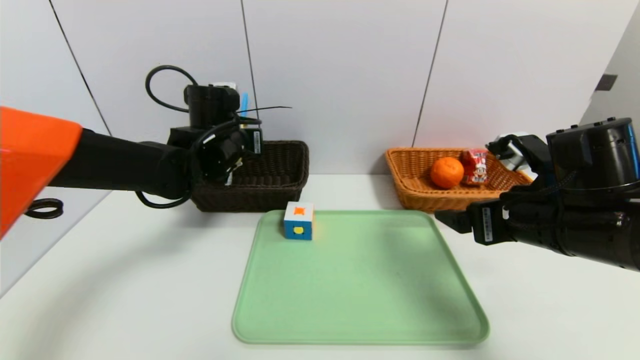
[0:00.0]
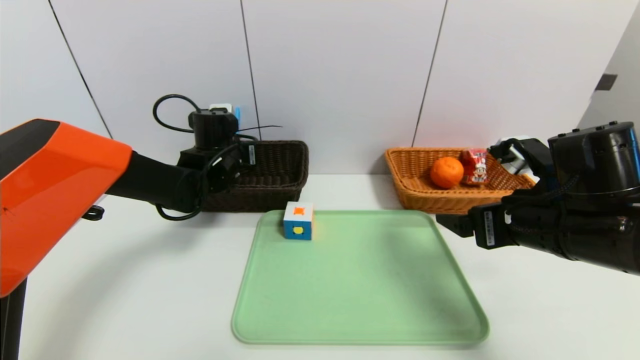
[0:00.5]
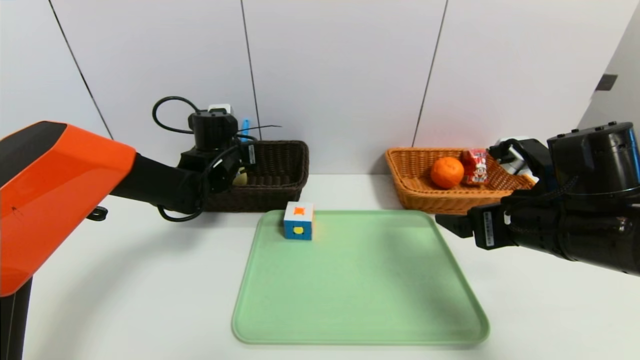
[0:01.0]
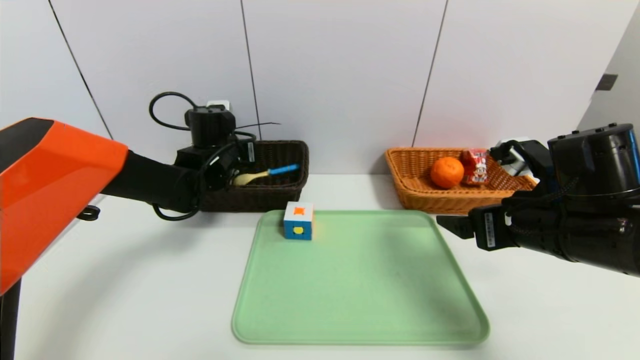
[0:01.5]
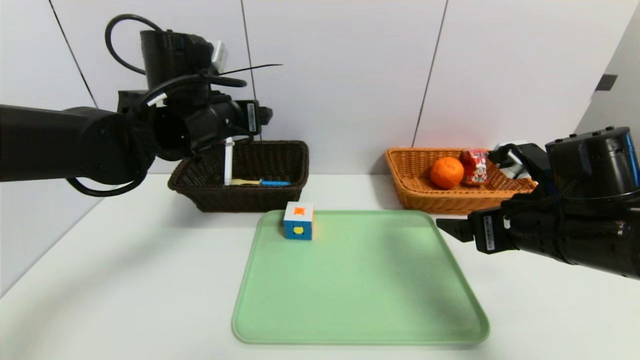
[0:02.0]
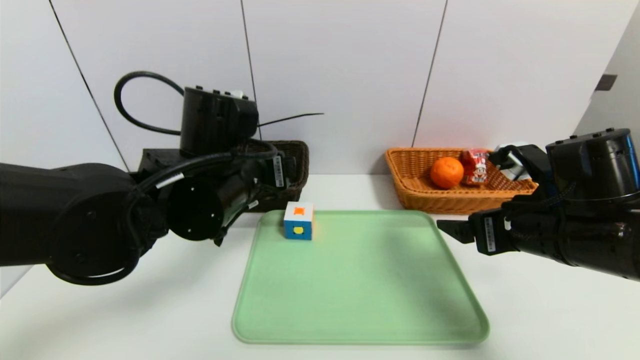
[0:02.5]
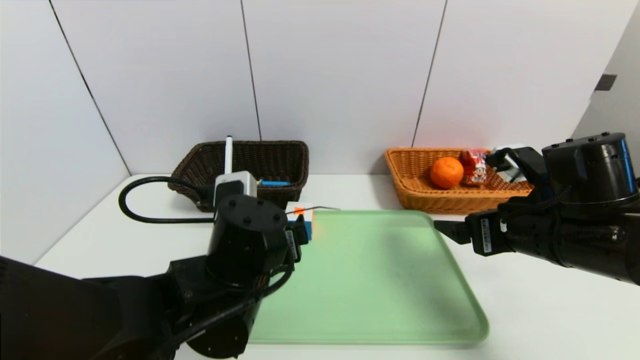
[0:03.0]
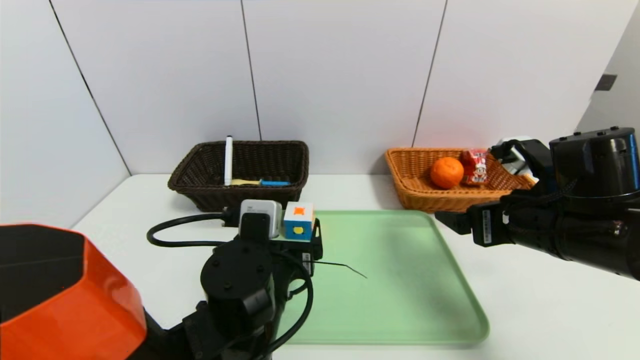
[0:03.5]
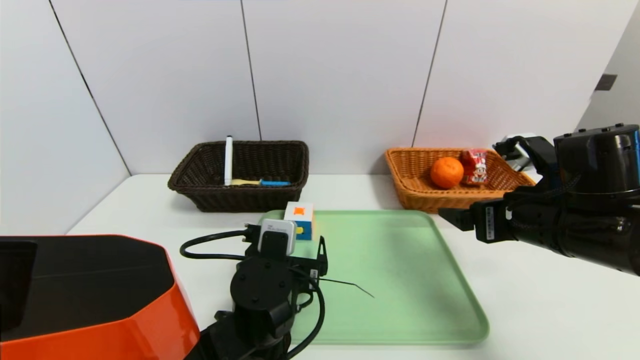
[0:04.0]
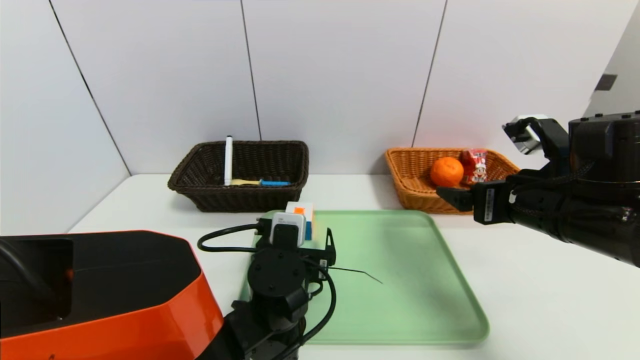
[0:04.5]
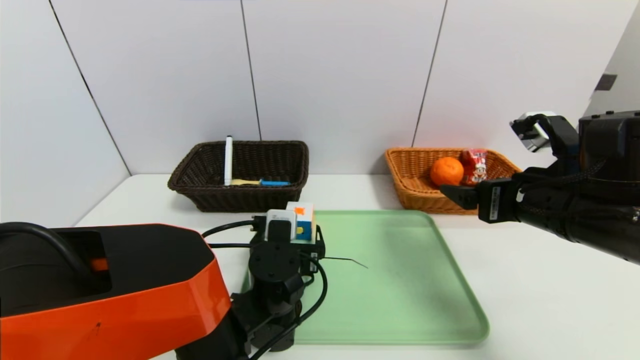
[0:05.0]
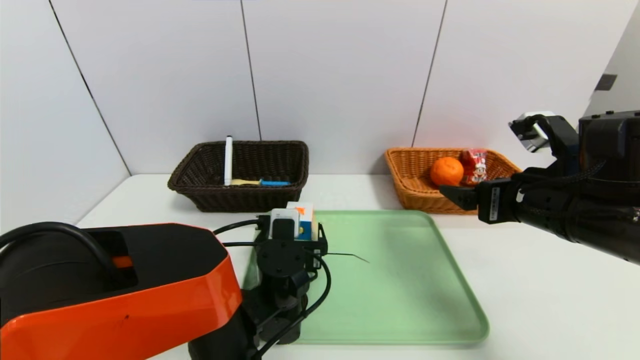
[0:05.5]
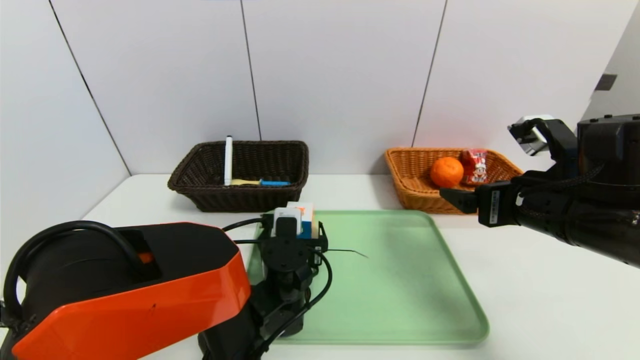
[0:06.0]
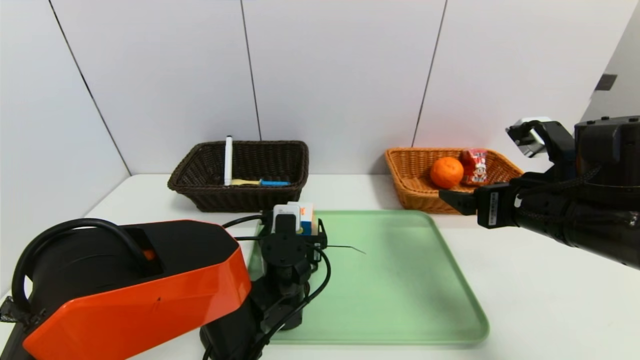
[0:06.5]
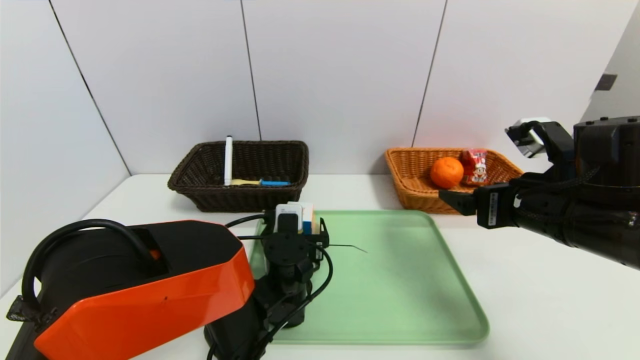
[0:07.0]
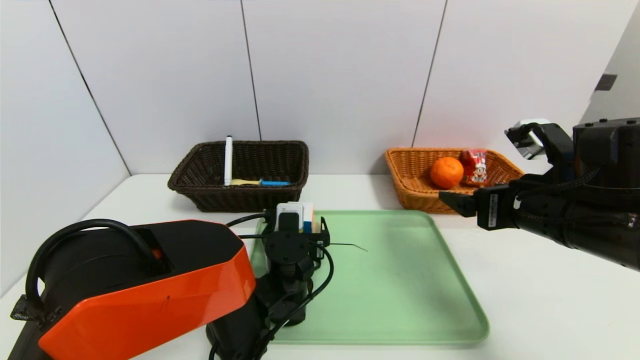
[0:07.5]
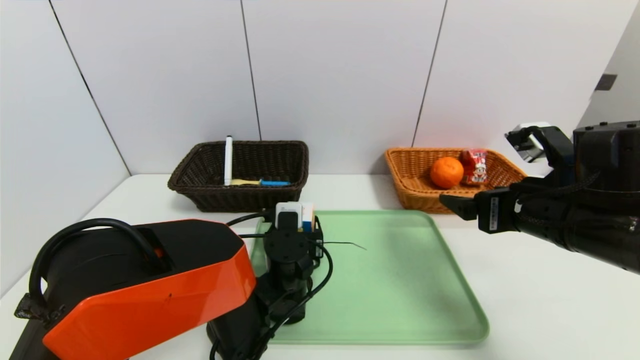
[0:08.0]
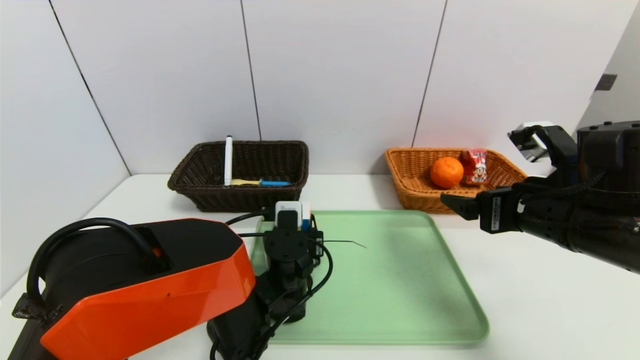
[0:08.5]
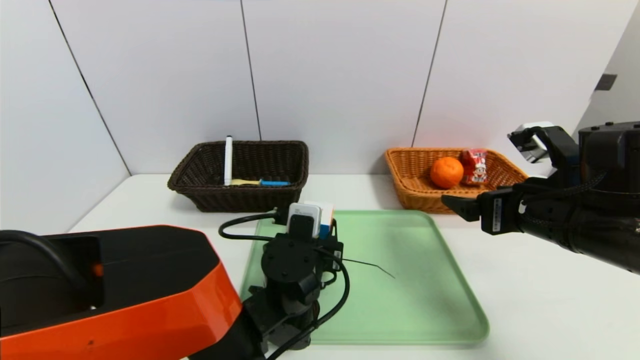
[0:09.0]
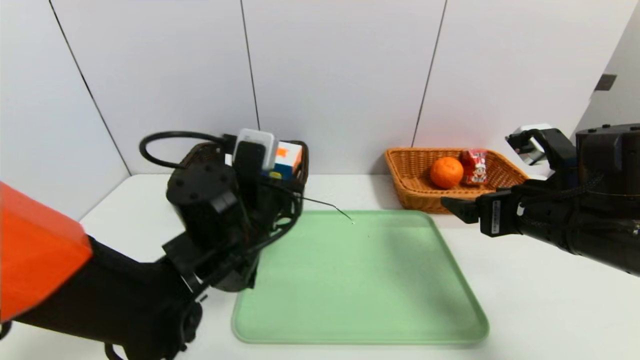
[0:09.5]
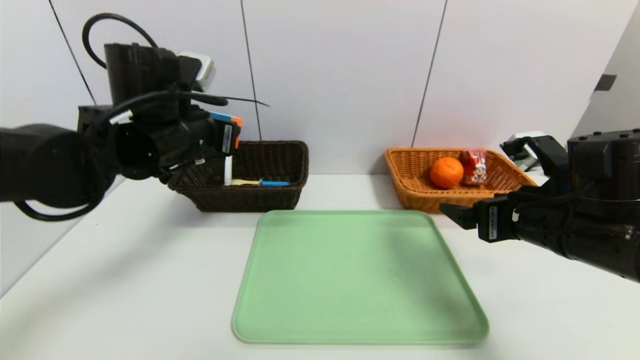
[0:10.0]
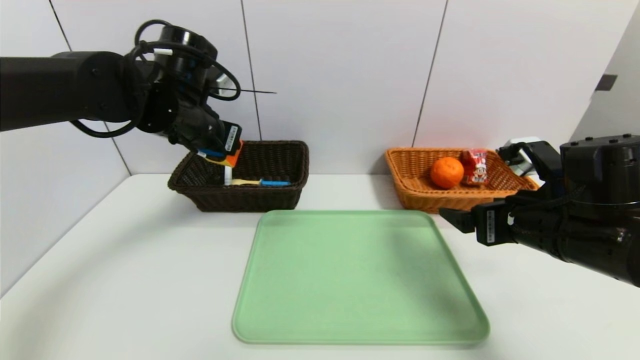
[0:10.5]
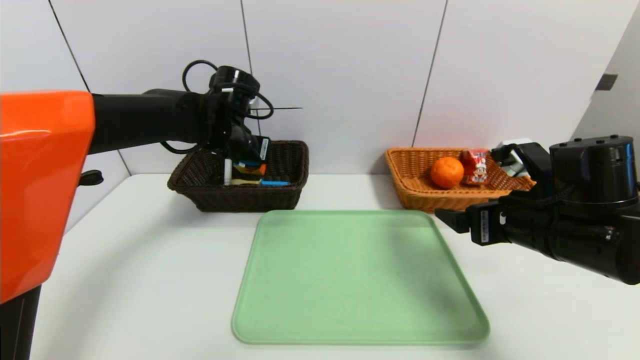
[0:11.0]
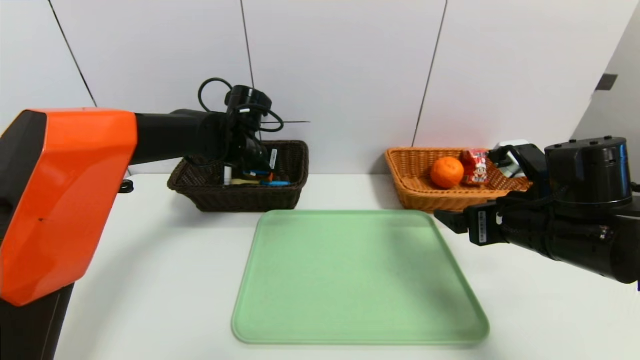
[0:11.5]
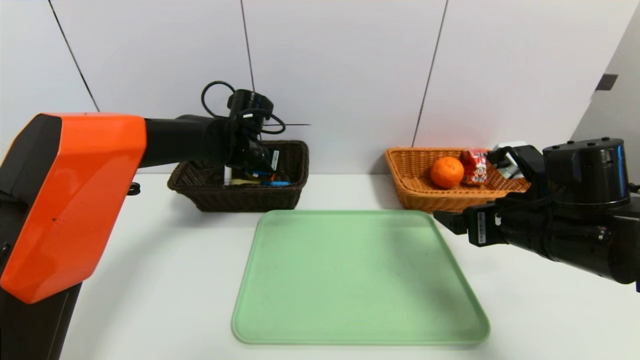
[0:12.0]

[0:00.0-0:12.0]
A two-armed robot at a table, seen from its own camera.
Task of the whole recording: place the food in the right basket with the right gripper, and place the non food items in the left basket with the left gripper.
0:00.0 to 0:02.0: The left gripper heads backward and upward, covering about 10 cm, and opens its fingers.
0:02.0 to 0:04.0: The left gripper is displaced downward, backward and to the right by some 25 cm.
0:04.0 to 0:06.0: The left gripper goes some 5 cm forward.
0:06.0 to 0:08.0: The grippers move only a little.
0:08.0 to 0:10.0: The left gripper travels upward and to the left by some 25 cm.
0:10.0 to 0:12.0: The left gripper moves forward and downward, approximately 15 cm.

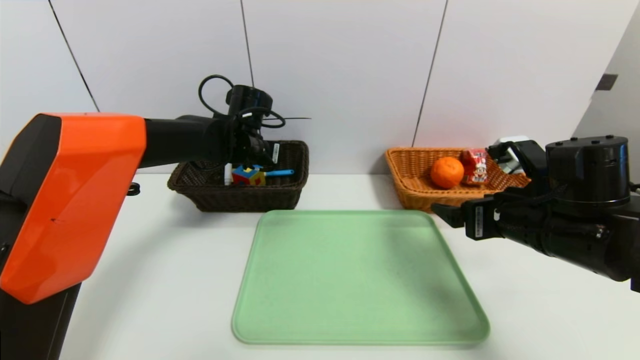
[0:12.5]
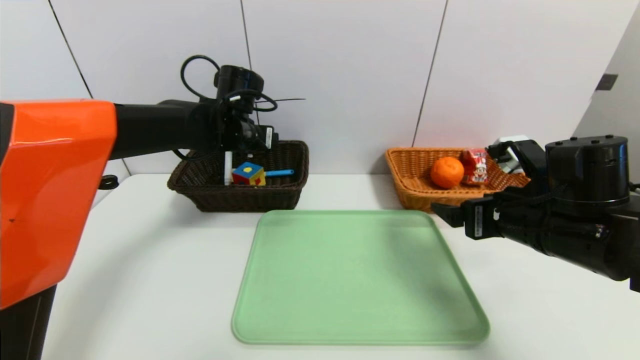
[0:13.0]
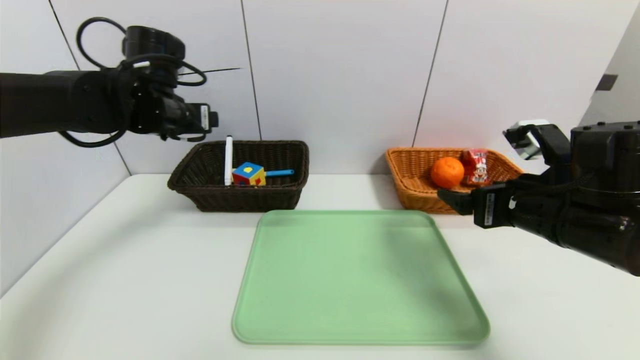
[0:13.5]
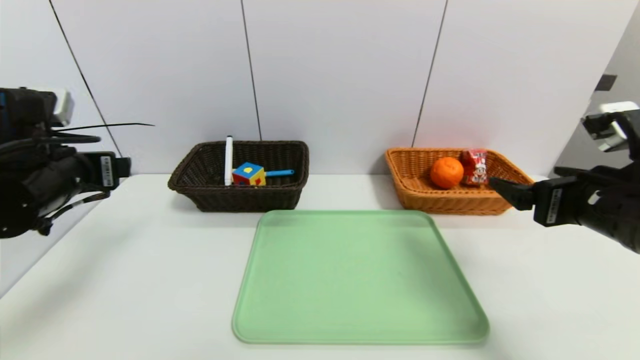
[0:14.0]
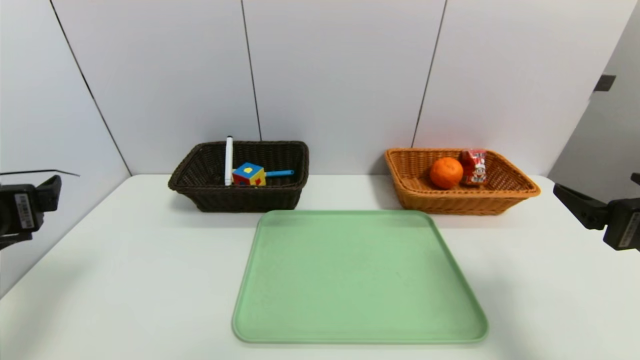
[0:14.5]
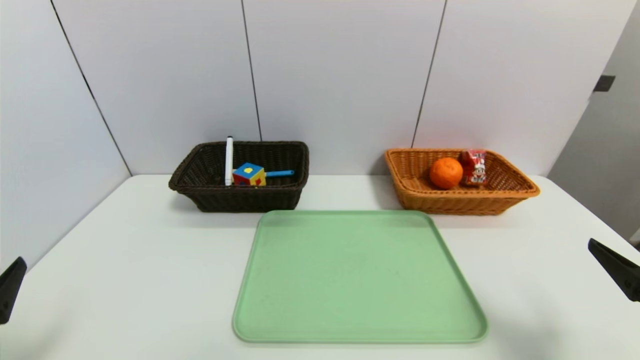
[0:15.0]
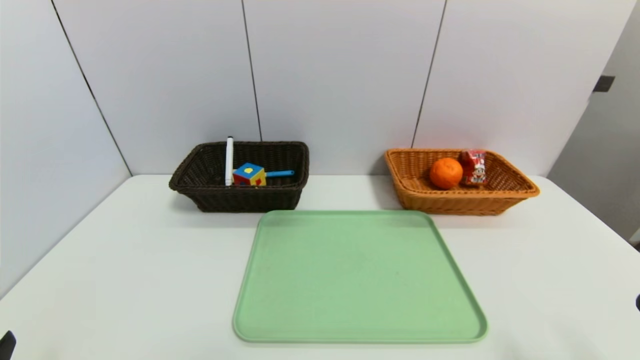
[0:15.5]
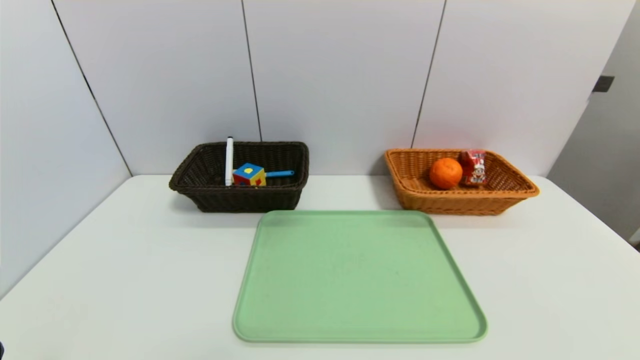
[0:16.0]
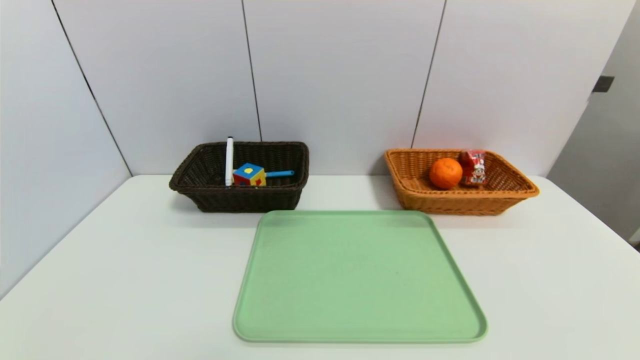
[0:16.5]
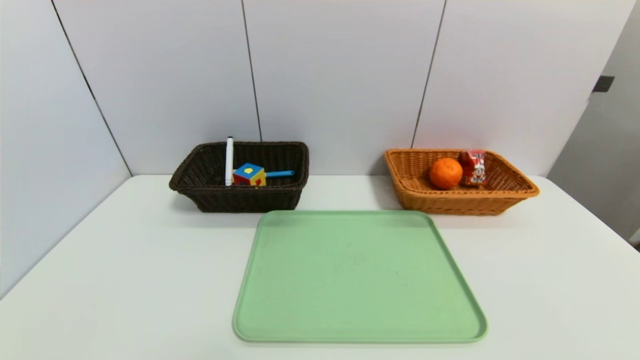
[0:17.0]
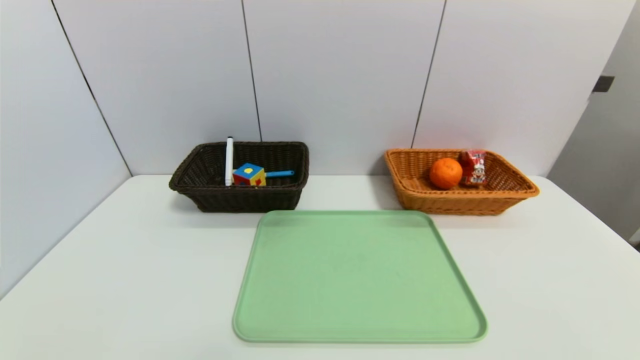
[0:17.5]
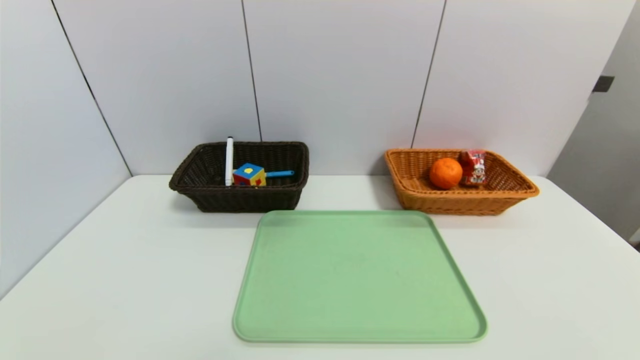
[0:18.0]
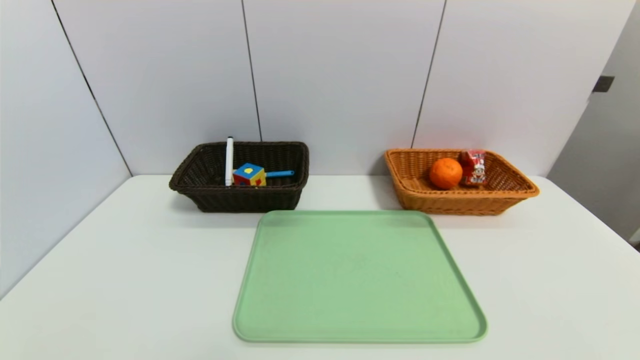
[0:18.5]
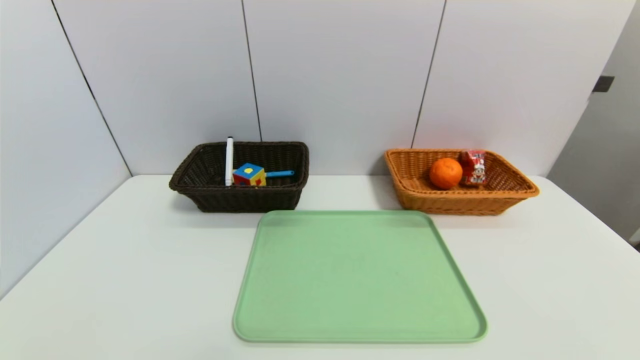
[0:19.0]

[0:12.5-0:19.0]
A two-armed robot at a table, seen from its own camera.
Task of the whole recording: place the food in the right basket with the right gripper, and place the non food items in the left basket with the left gripper.
0:12.5 to 0:14.5: The right gripper is displaced backward and to the right by approximately 10 cm. The left gripper moves backward and to the left, about 35 cm.
0:14.5 to 0:17.0: The grippers both shift backward and downward by approximately 20 cm.
